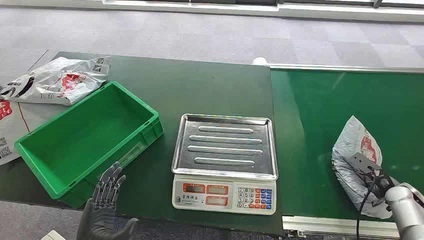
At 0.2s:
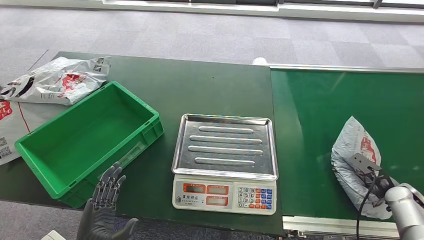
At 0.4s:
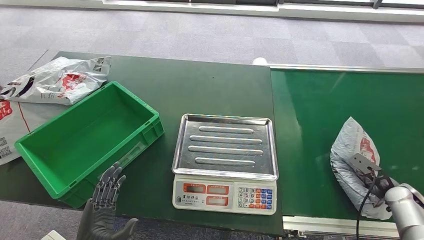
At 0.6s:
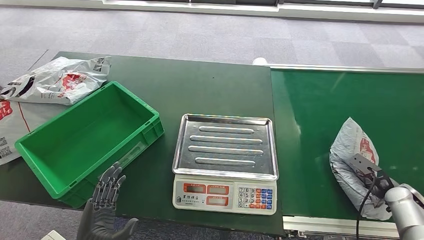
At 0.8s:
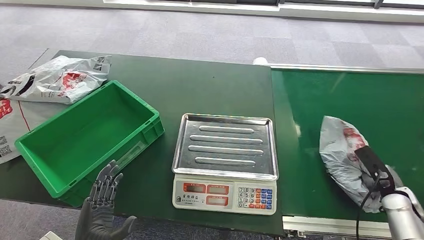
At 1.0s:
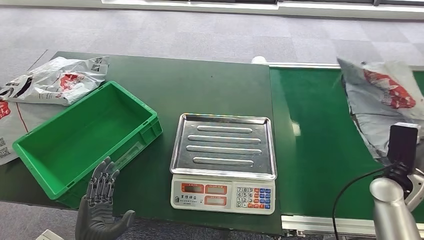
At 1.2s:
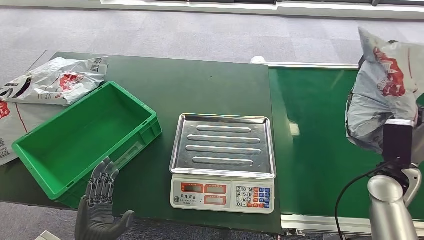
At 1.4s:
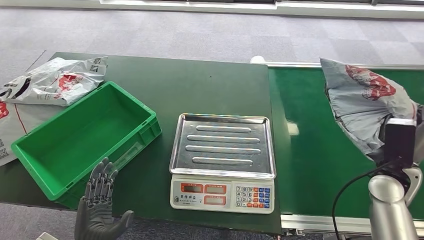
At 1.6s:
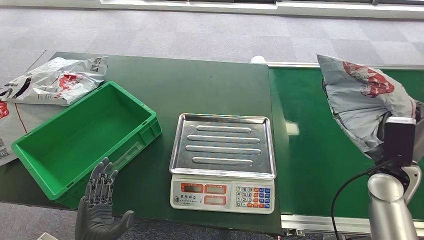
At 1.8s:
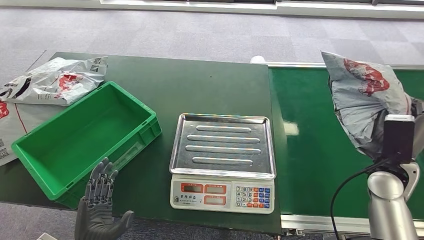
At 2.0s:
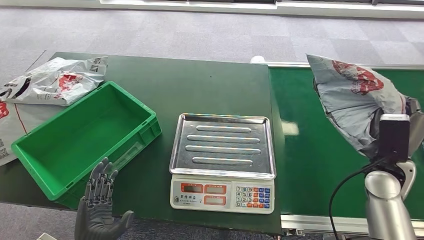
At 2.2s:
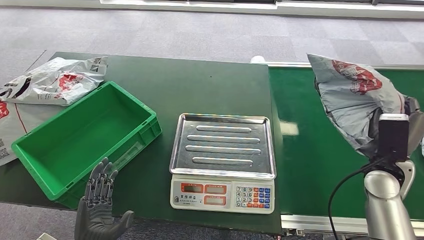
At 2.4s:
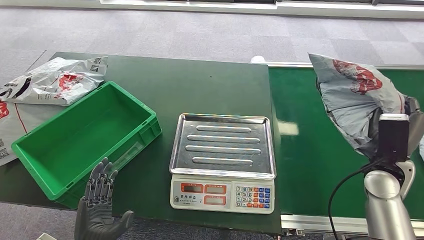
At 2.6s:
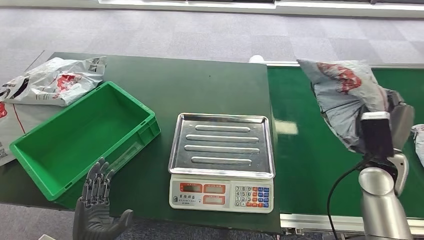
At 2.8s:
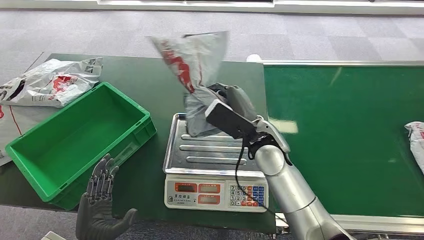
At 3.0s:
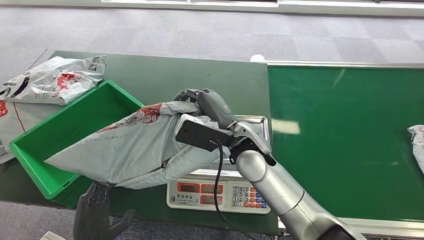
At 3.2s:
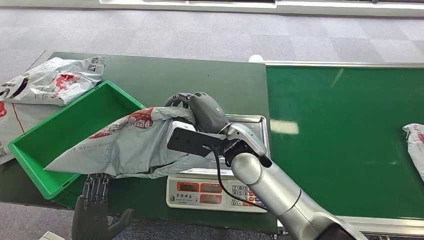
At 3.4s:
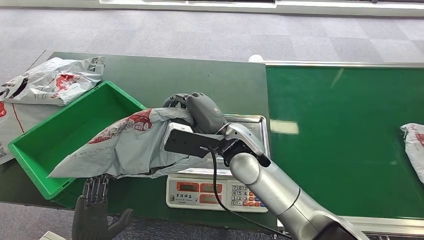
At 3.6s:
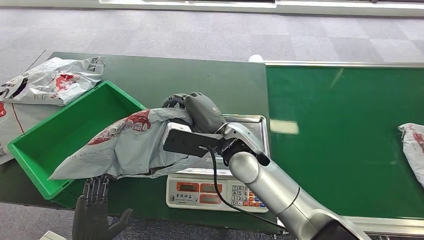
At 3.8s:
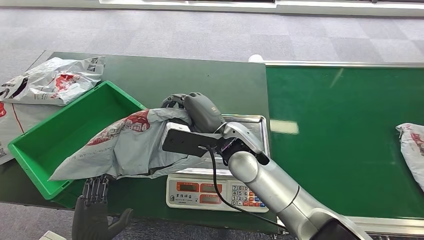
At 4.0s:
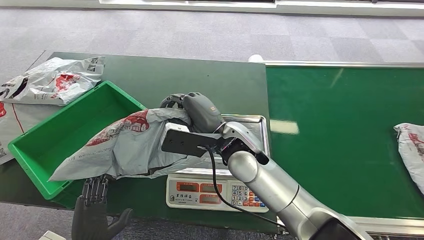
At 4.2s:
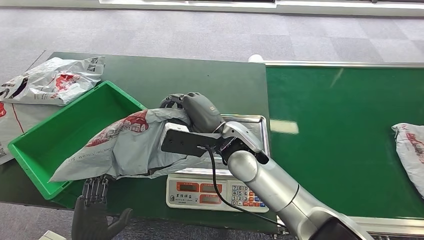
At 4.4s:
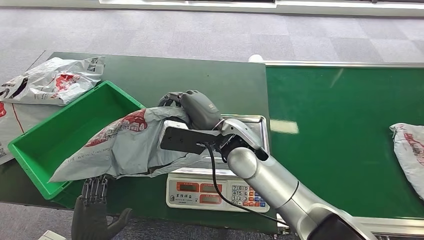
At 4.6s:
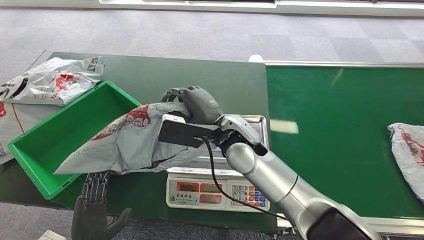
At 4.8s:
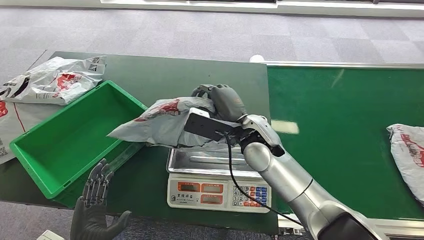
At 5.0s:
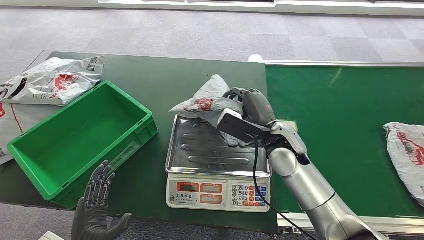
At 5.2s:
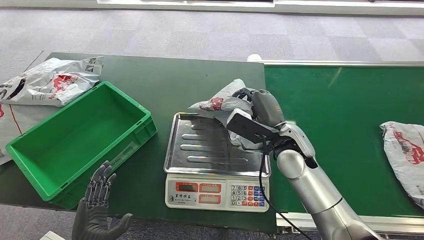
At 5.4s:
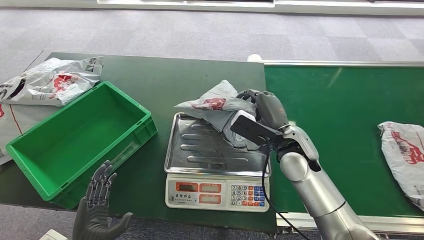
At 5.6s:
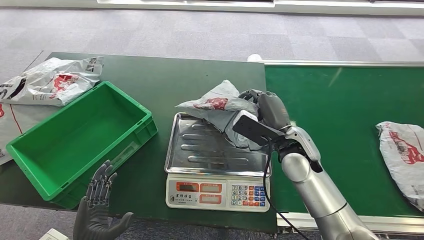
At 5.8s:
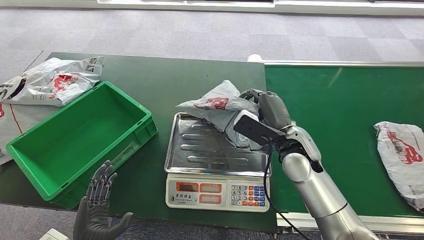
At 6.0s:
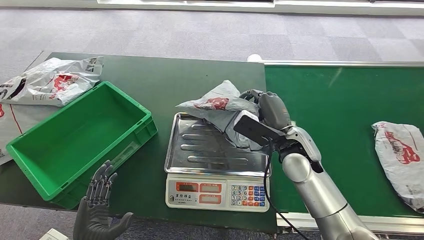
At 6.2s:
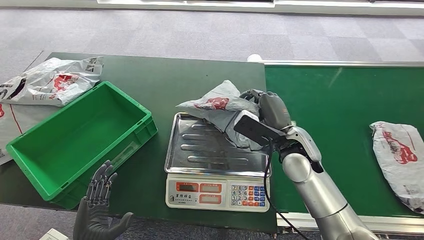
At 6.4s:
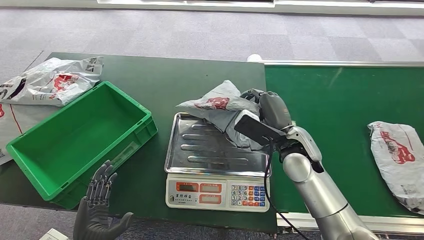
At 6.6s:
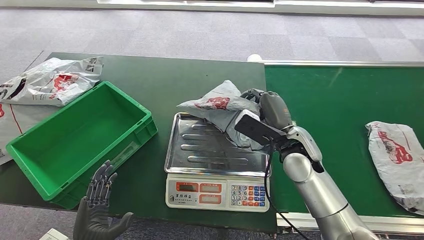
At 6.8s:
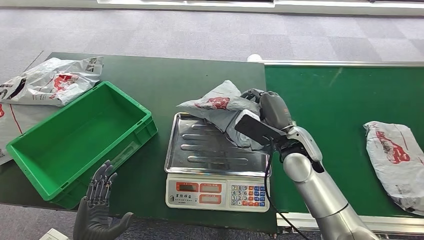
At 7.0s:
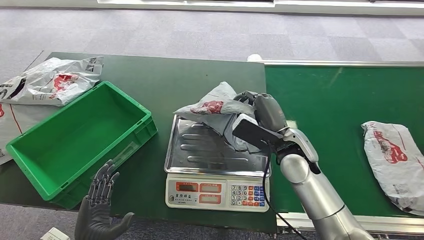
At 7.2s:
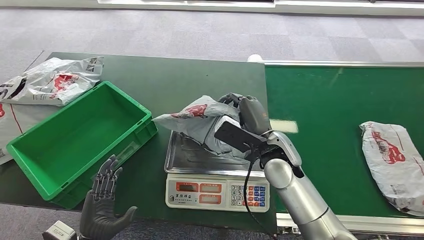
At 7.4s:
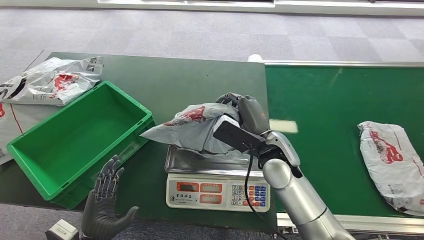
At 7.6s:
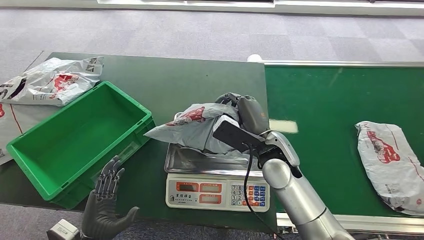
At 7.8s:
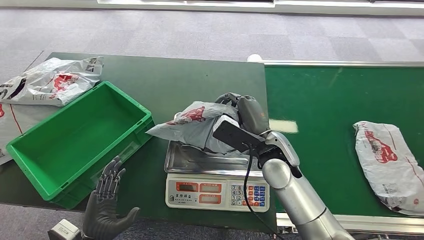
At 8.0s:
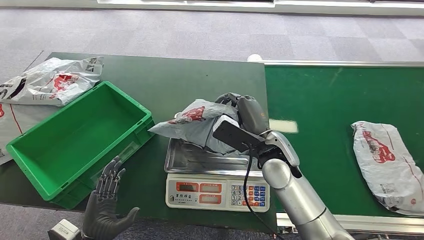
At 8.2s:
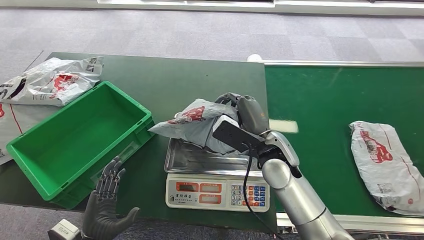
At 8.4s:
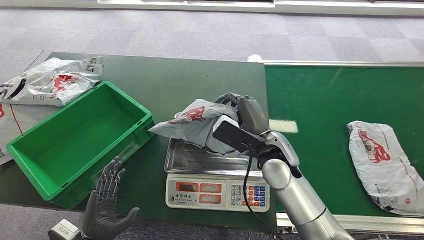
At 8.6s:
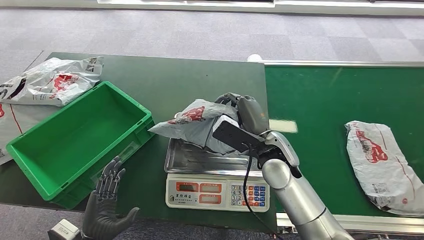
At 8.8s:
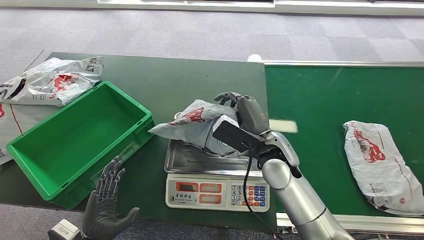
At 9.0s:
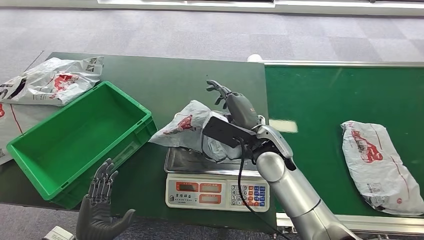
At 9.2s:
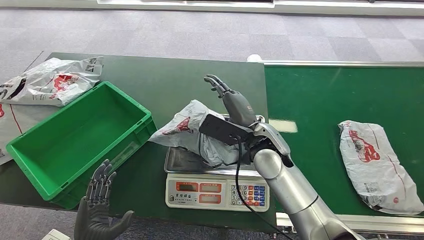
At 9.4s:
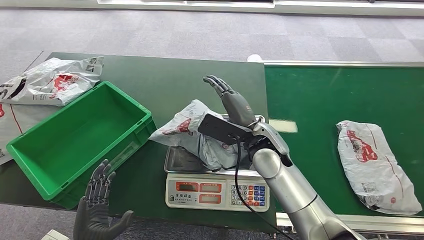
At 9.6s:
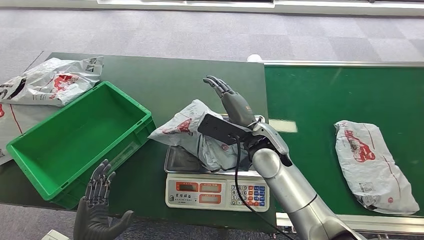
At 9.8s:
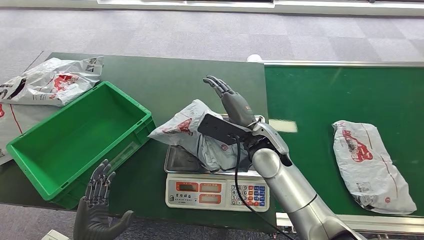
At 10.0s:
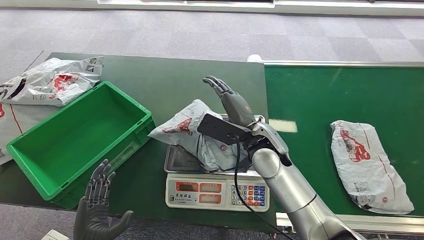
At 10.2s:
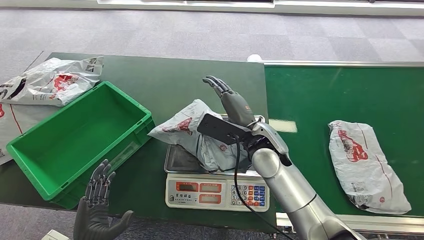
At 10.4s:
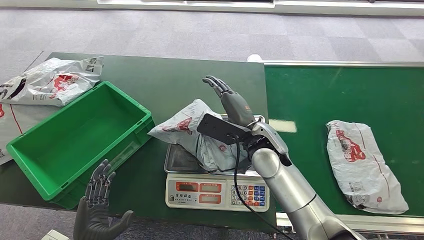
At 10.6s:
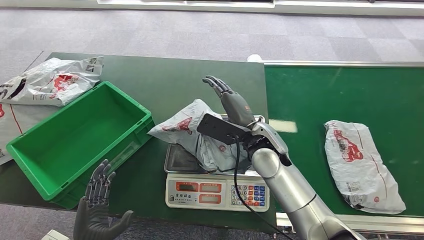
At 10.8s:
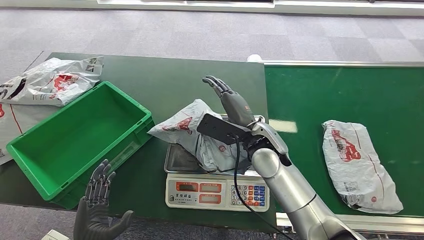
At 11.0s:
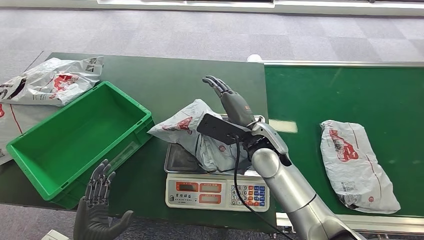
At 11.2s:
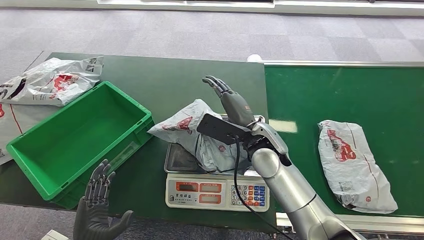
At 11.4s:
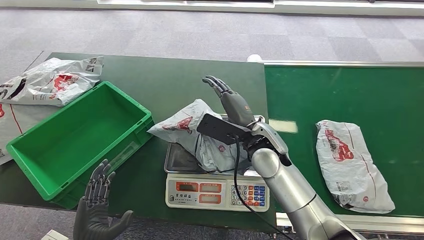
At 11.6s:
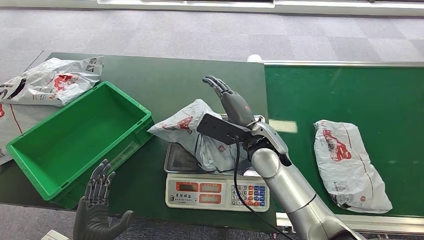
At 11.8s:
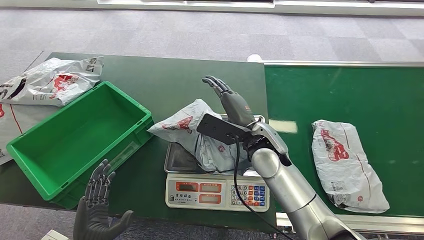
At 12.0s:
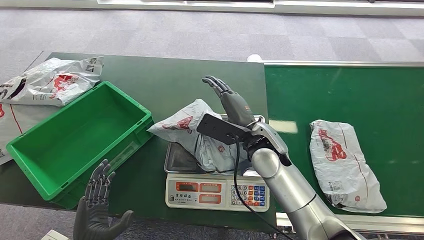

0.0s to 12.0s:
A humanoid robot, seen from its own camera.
Step, 0.0s to 2.2s: Pick up the package from the conveyor belt.
Step, 2.4s to 10.2s: Place the package onto the inbound machine.
3.0s to 4.4s: The hands stay close to where they were, moving slightly.
6.0s to 7.6s: The right hand heads to the left, covering approximately 5 cm.
7.6s to 9.0s: There are only small adjustments of the hands.
9.0s to 12.0s: Both hands stay put.

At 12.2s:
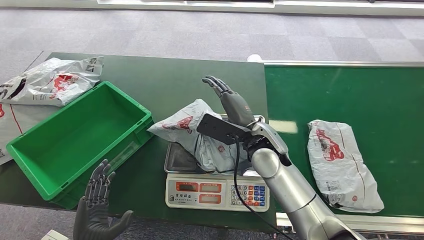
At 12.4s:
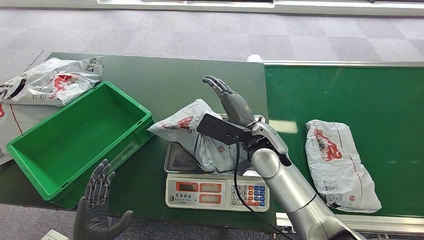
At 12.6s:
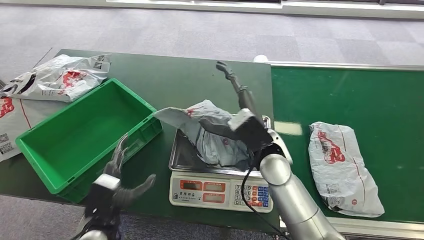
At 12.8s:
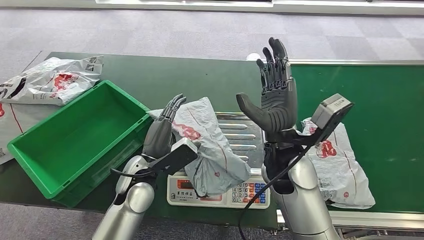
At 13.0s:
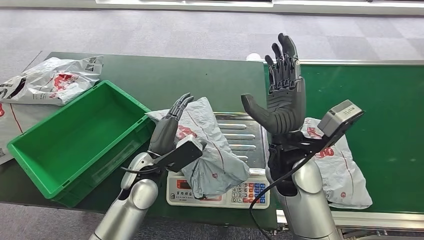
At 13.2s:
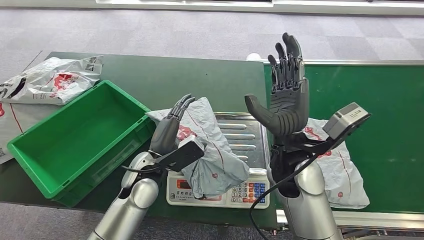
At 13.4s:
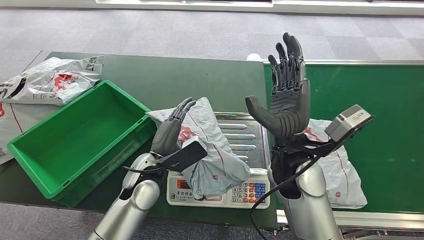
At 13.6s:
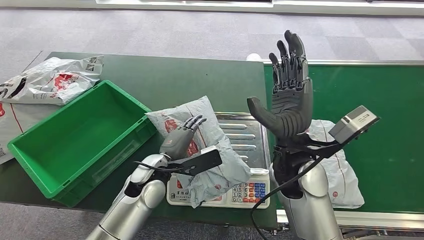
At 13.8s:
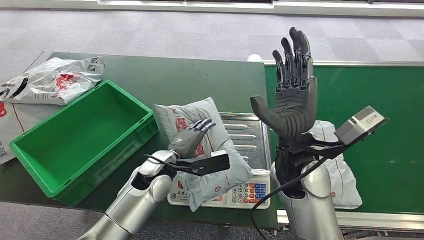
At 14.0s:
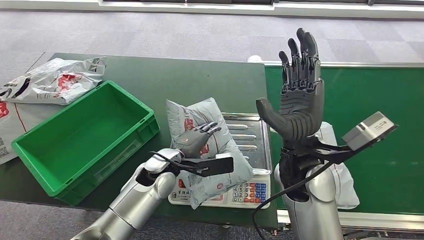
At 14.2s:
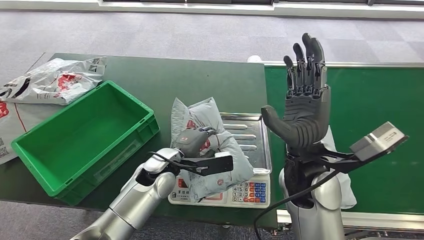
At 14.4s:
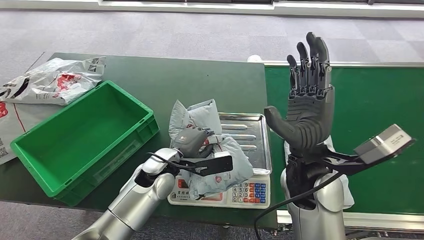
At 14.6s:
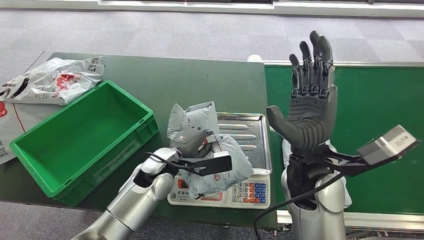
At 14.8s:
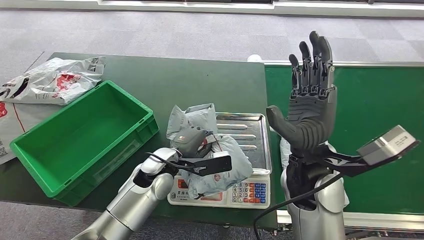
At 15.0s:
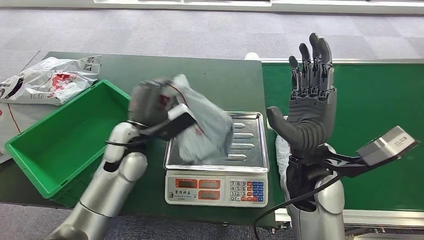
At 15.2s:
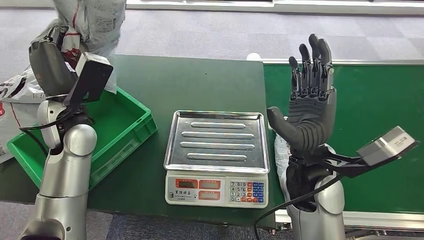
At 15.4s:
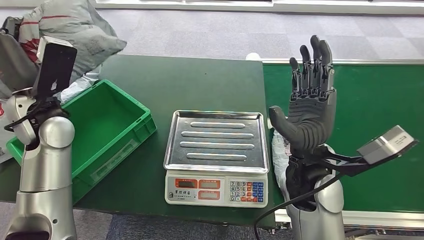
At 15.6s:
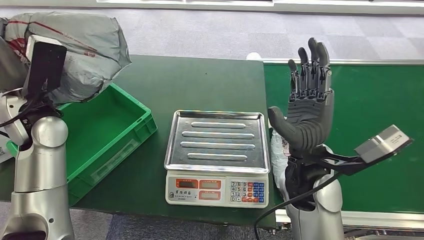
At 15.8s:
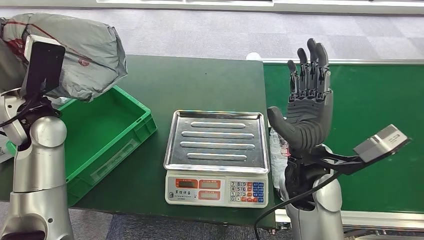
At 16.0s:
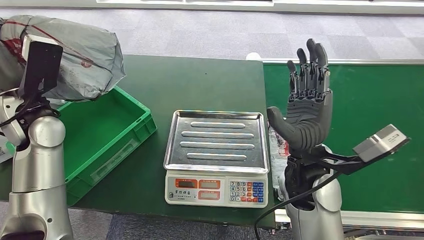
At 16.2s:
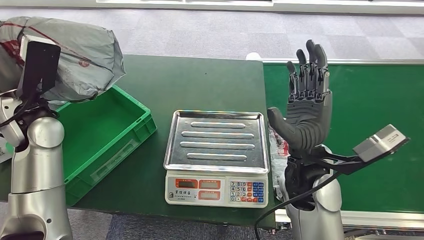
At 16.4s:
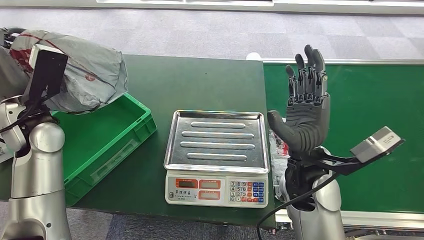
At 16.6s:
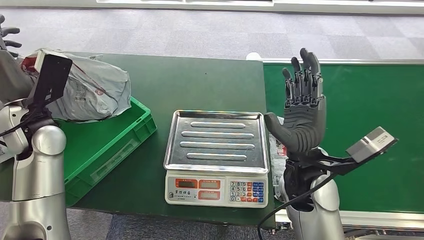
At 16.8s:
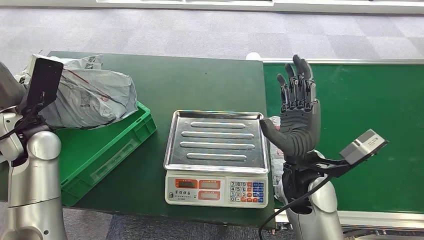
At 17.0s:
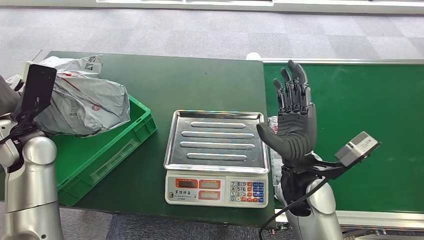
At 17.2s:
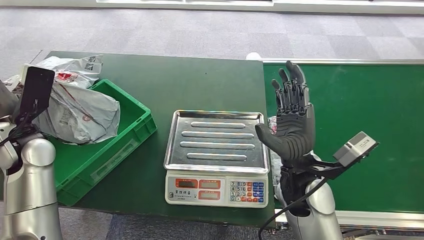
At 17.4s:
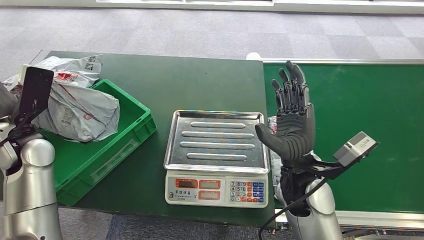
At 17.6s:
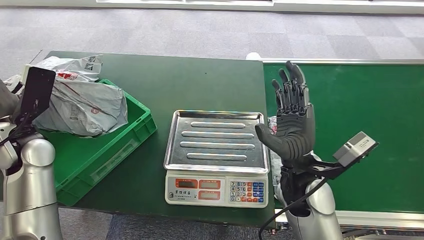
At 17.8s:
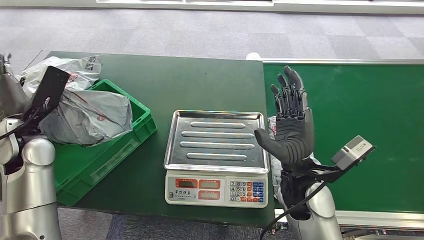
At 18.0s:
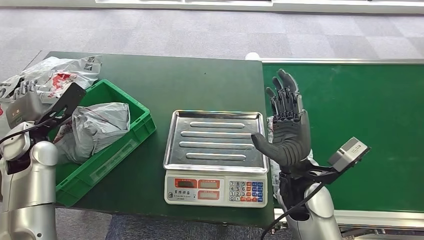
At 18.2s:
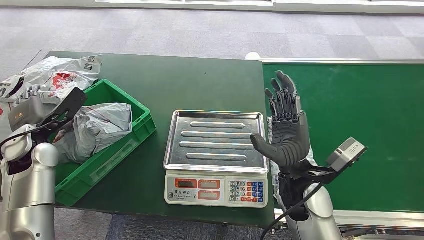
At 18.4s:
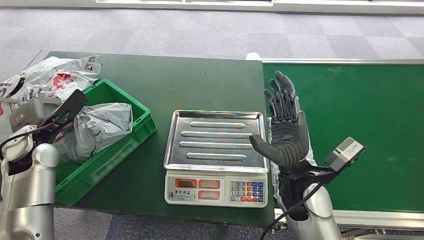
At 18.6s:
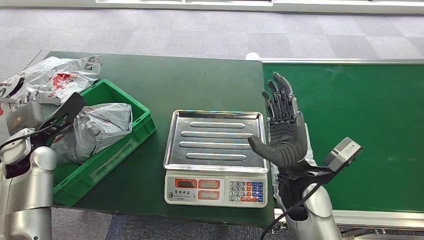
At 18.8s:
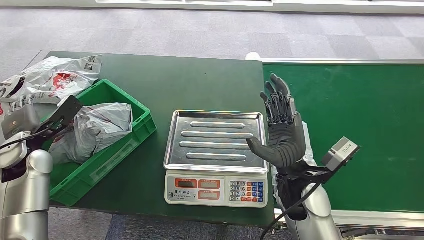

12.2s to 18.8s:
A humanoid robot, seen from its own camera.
Step, 14.4s to 15.0s: Pick up the package from the inbound machine.
Step, 15.4s to 18.8s: Place the package into the parcel locker.
17.2s to 18.8s: The left hand heads downward, covering approximately 5 cm.
